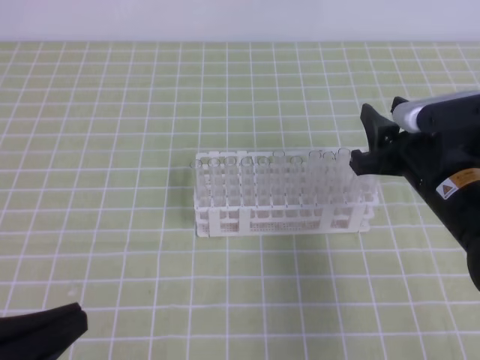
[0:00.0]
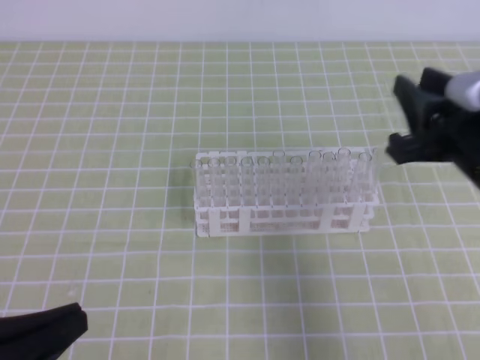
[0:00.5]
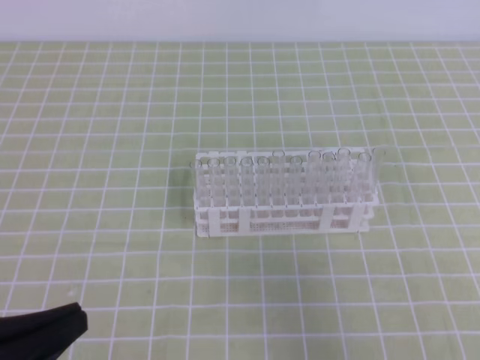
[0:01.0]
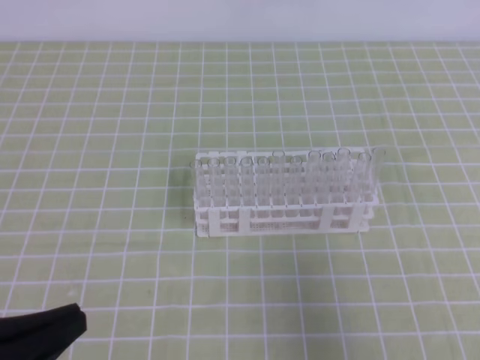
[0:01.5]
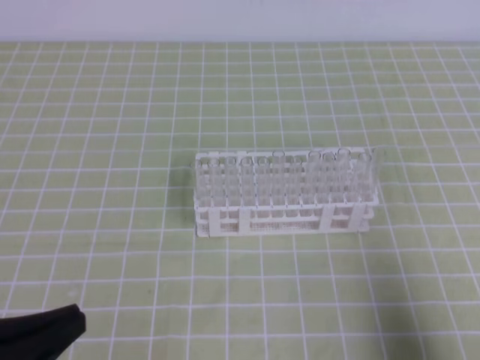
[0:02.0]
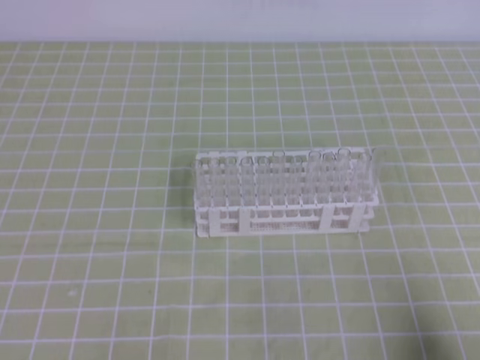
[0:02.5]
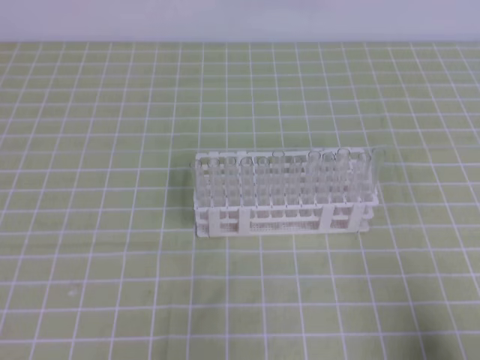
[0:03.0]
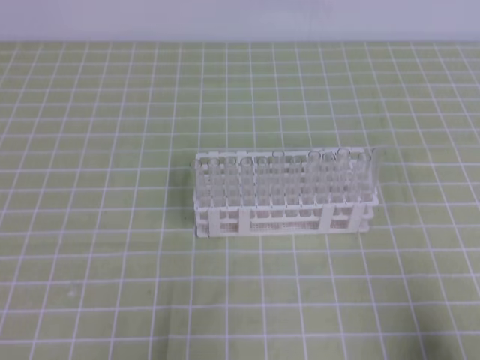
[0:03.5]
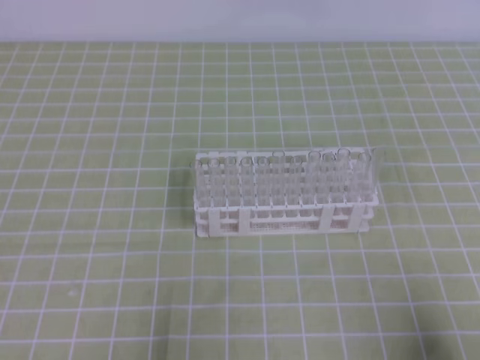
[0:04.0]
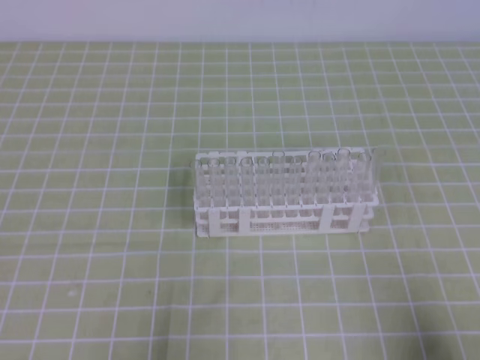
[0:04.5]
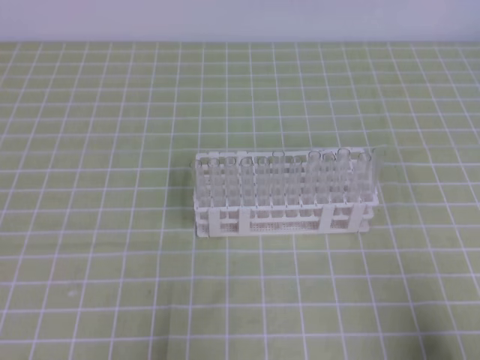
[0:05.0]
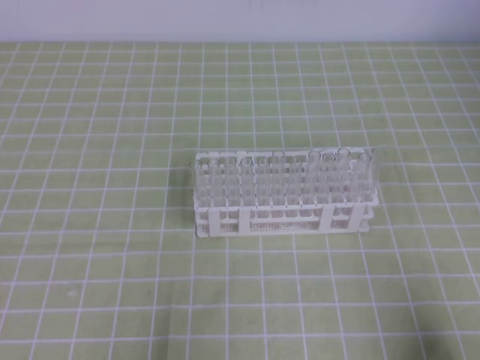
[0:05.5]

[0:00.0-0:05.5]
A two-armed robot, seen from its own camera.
0:00.0 to 0:02.0: The right gripper is displaced backward and to the right by roughly 25 cm, and closes up.
0:02.0 to 0:03.5: The right gripper moves downward, about 5 cm; the left gripper goes about 10 cm downward.
0:03.5 to 0:05.5: The grippers make only small movements.

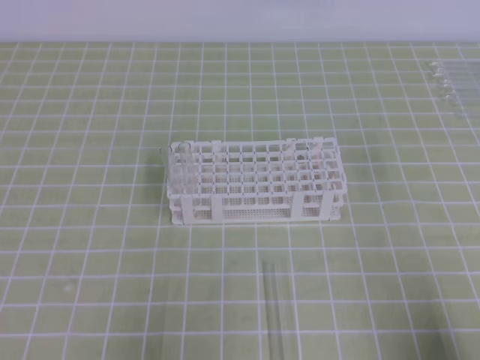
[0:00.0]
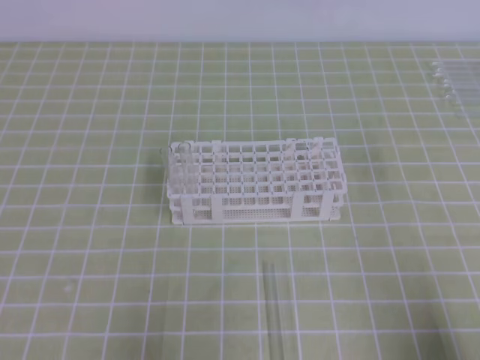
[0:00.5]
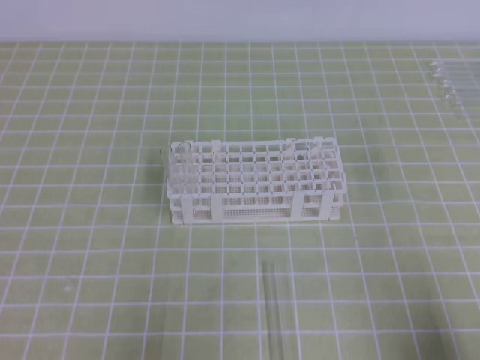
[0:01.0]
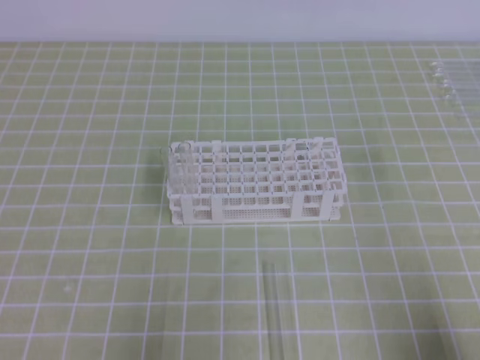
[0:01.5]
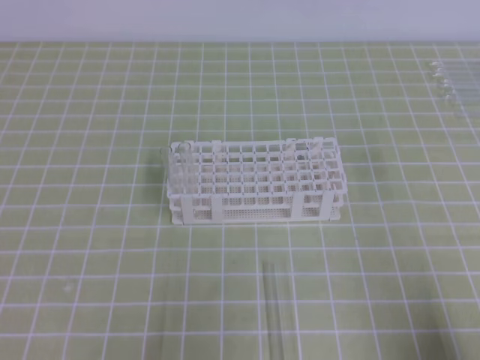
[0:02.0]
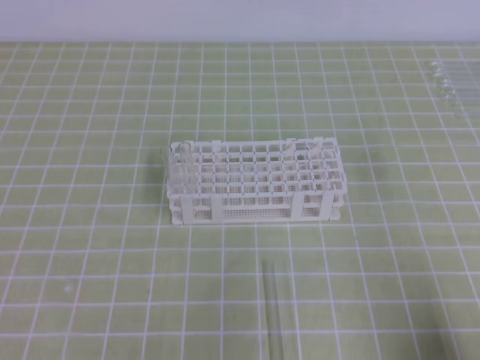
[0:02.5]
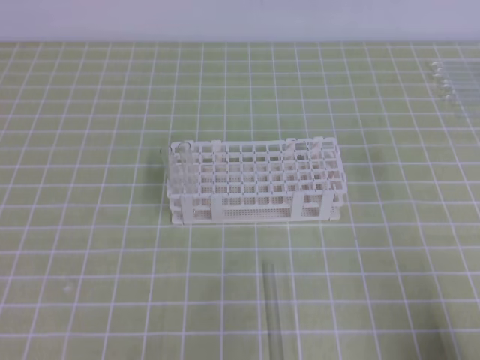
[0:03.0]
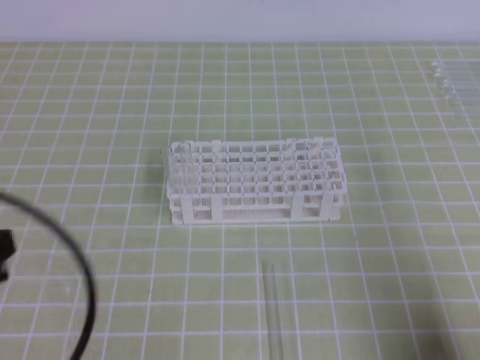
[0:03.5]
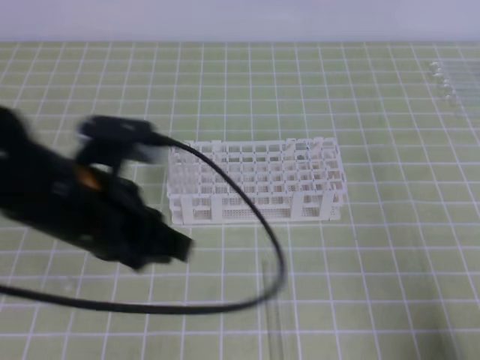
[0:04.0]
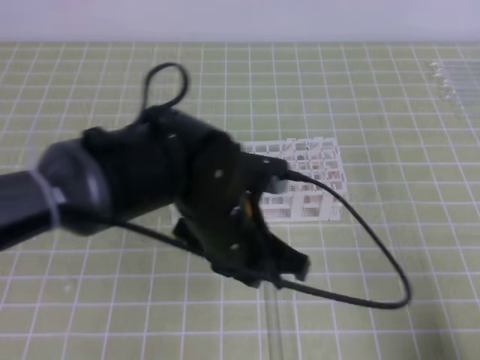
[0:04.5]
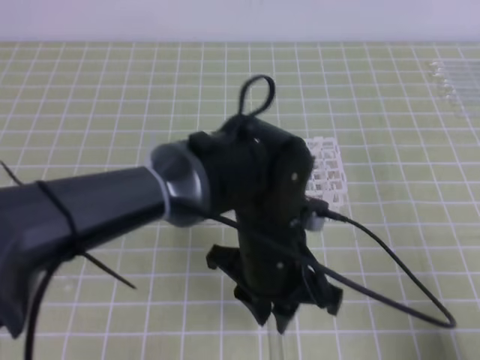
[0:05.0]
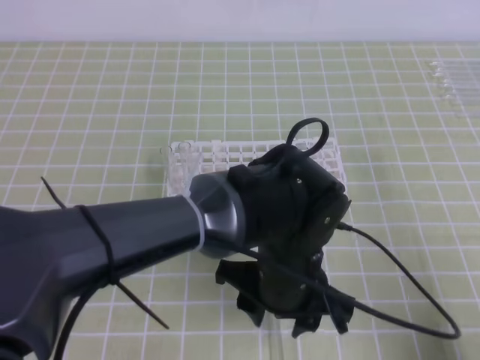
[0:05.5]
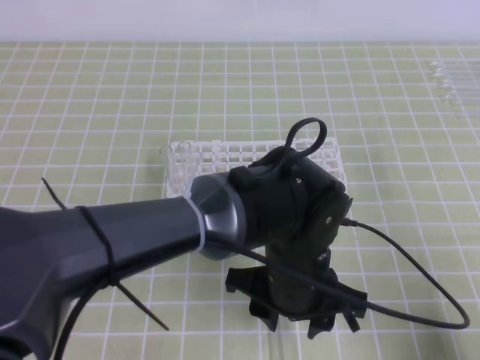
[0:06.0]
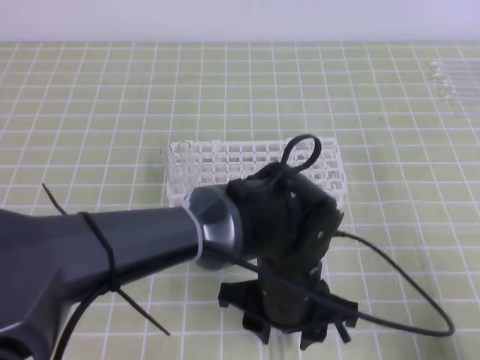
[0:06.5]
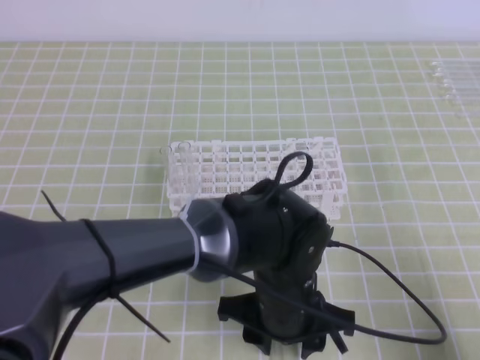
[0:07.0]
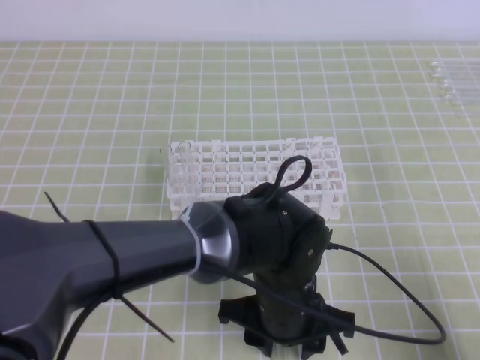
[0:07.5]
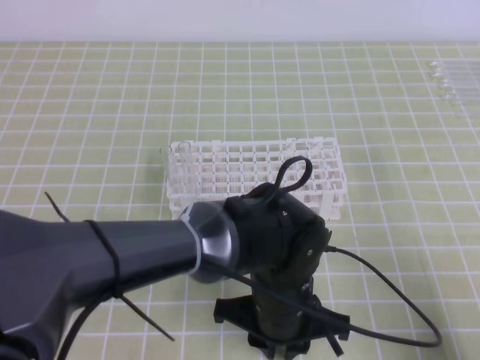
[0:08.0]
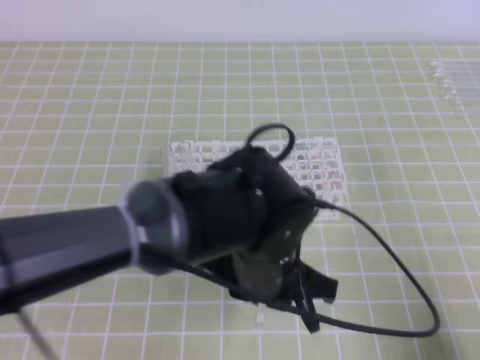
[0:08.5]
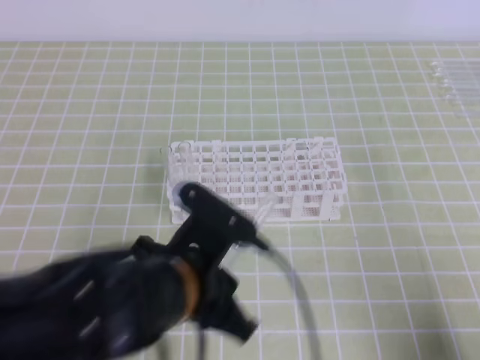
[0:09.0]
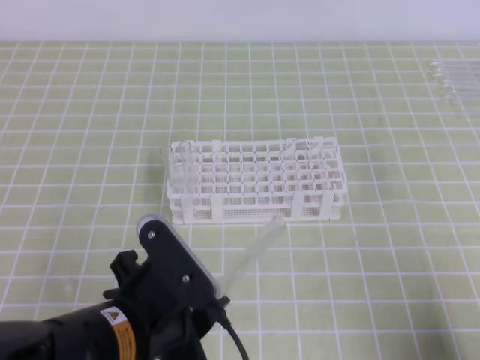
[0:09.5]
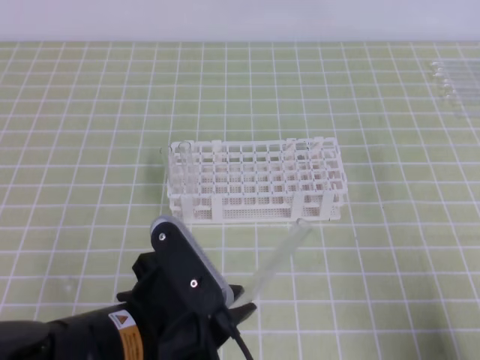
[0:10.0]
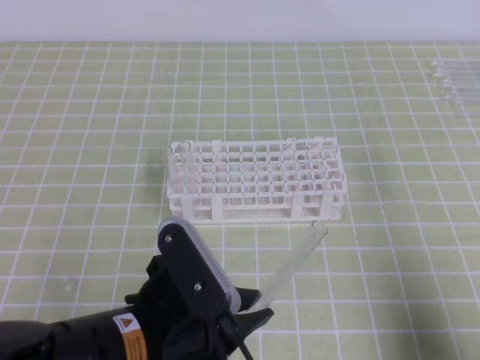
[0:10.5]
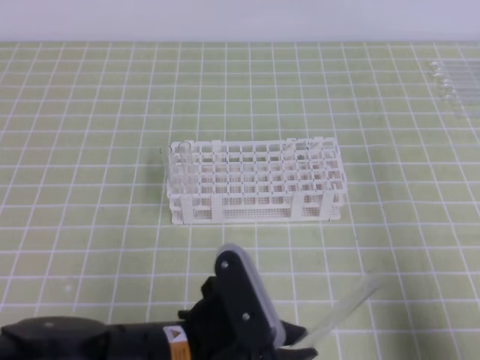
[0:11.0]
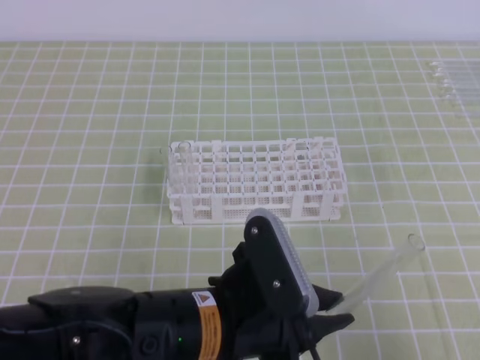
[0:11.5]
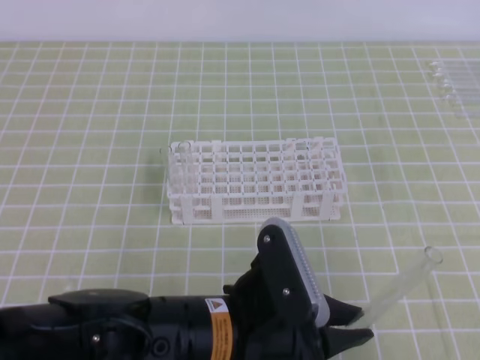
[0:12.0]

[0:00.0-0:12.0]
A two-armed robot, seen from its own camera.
0:02.0 to 0:04.0: The left gripper moves forward, to the right and upward, some 25 cm.
0:04.0 to 0:06.0: The left gripper moves to the right and downward, roughly 20 cm, and opens up.
0:06.0 to 0:08.0: The left gripper closes.
0:08.0 to 0:10.0: The left gripper moves to the left, backward and upward, some 15 cm.
0:10.0 to 0:12.0: The left gripper heads to the right, covering some 5 cm. The right gripper moves upward, some 15 cm.

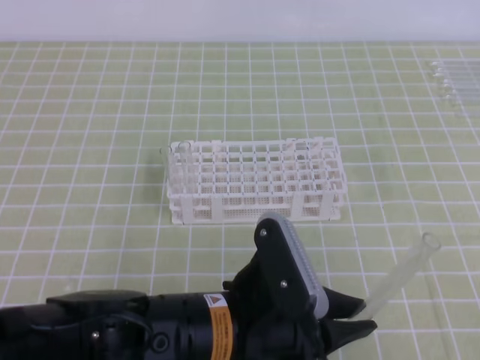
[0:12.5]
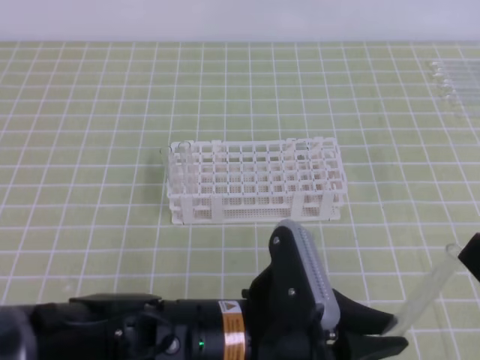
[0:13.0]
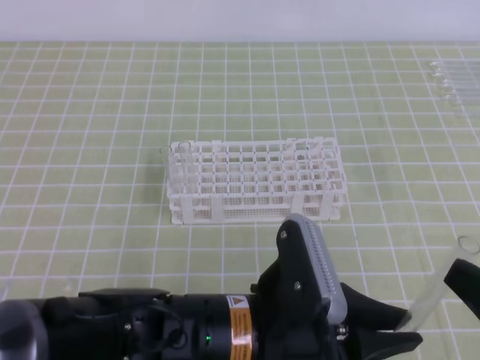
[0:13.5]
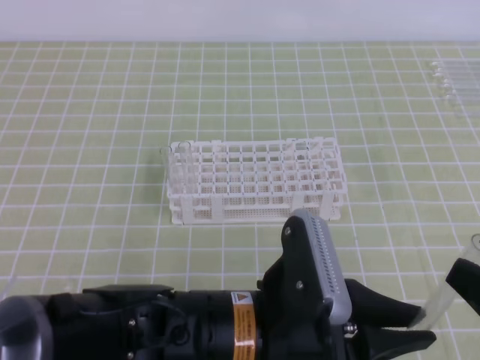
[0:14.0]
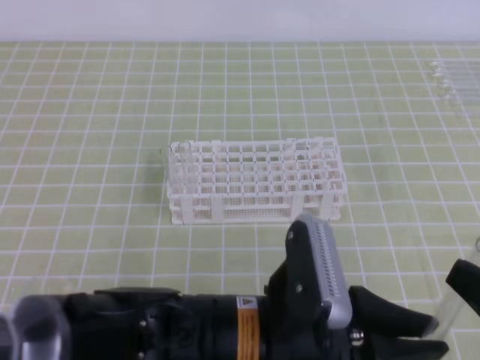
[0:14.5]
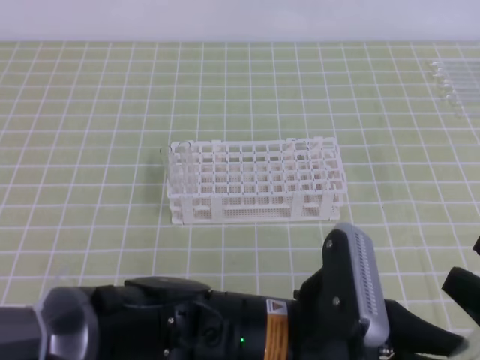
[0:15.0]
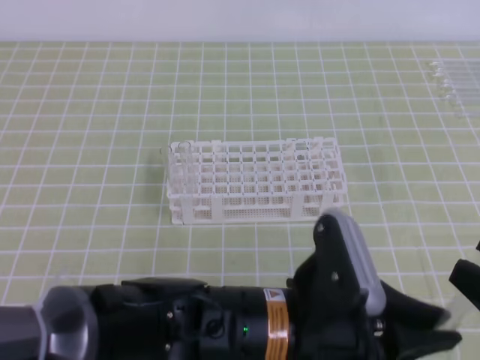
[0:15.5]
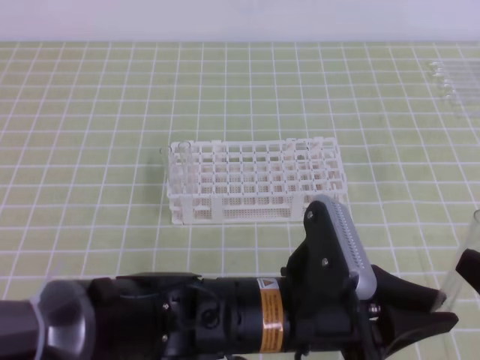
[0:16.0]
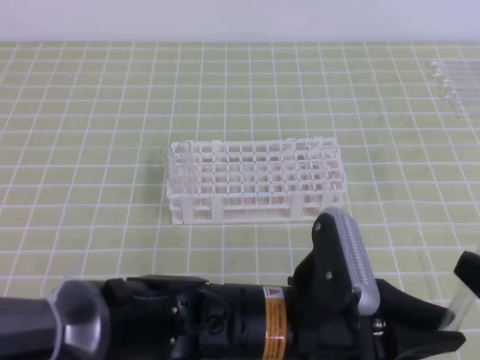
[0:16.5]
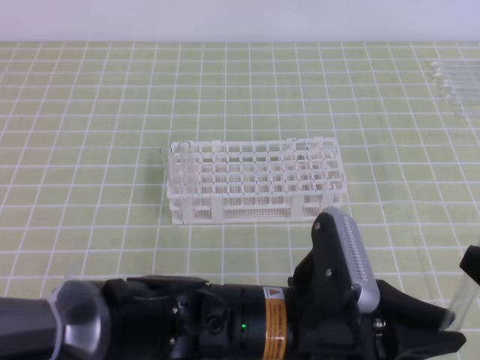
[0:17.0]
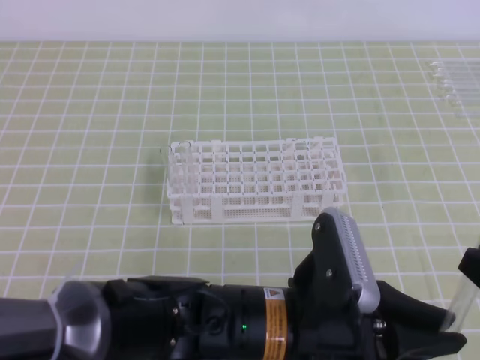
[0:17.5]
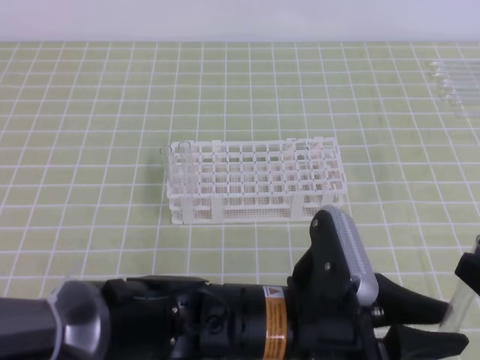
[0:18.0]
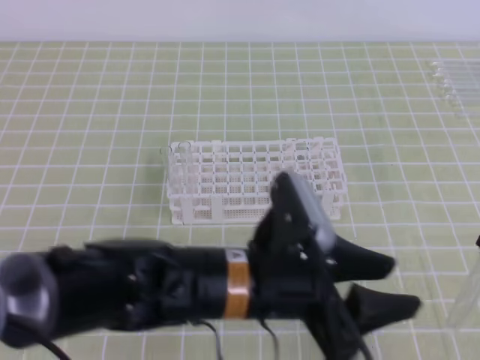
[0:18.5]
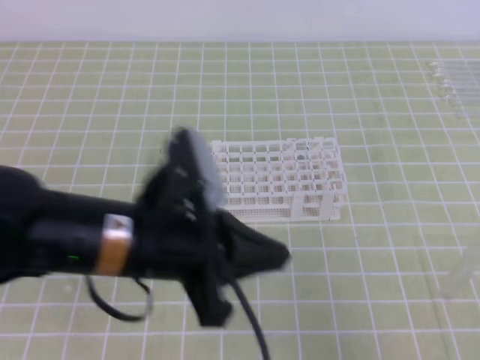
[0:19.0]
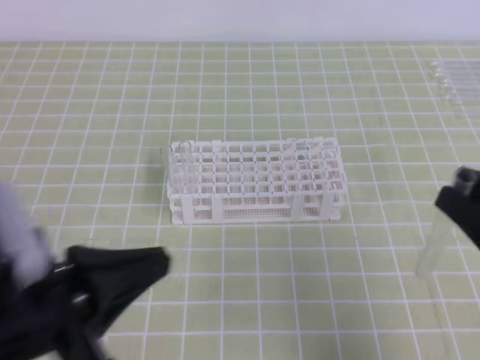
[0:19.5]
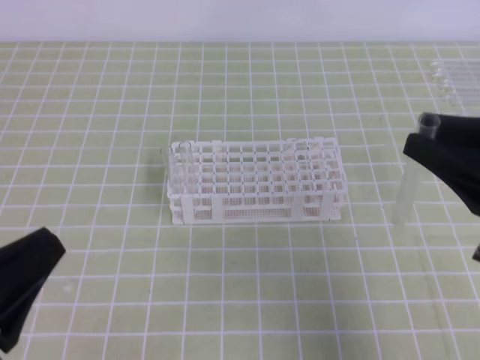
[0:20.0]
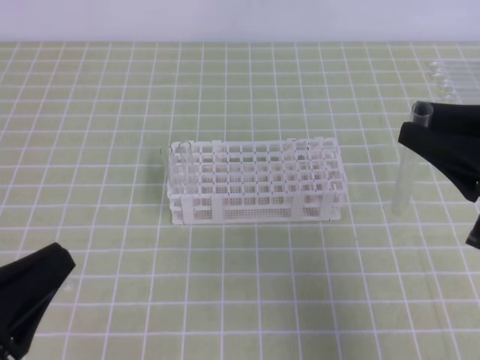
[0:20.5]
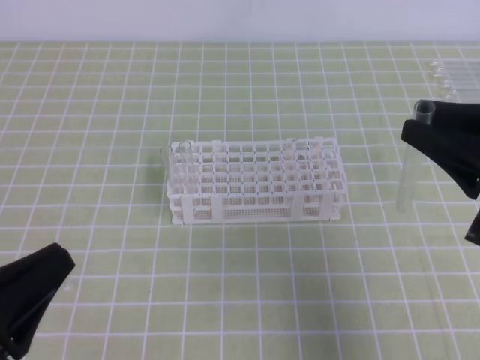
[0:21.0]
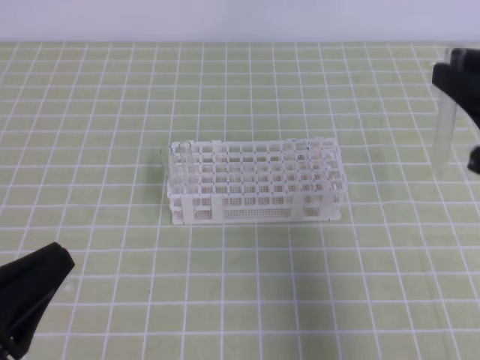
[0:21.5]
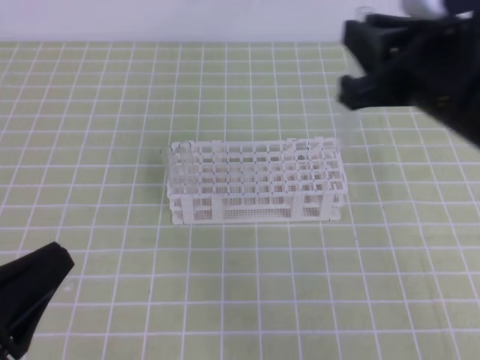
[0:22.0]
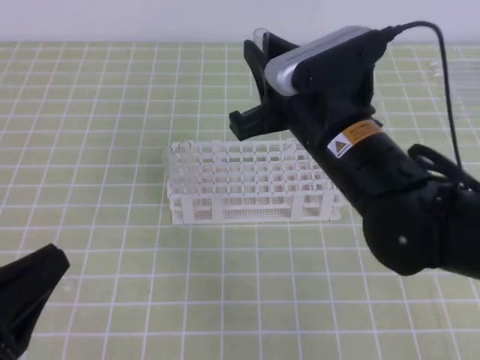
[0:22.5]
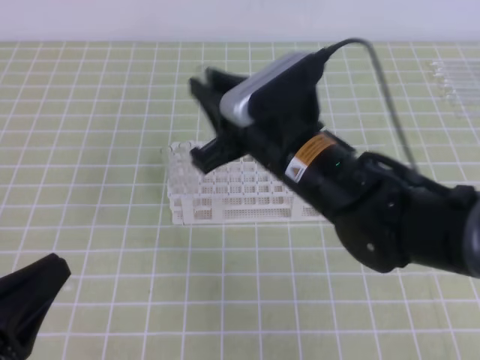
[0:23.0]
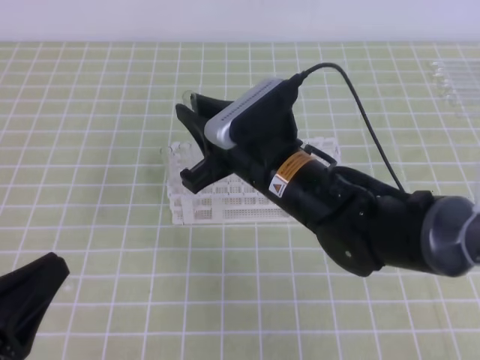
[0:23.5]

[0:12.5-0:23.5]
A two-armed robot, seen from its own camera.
0:14.5 to 0:16.0: There are only small adjustments of the grippers.
0:16.0 to 0:18.0: The left gripper opens up. The right gripper closes up.
0:18.0 to 0:20.0: The right gripper heads forward, covering about 10 cm; the left gripper moves to the left, roughly 25 cm, and closes its fingers.
0:20.0 to 0:21.5: There are only small adjustments of the grippers.
0:21.5 to 0:23.5: The right gripper travels to the left and downward by approximately 25 cm.
